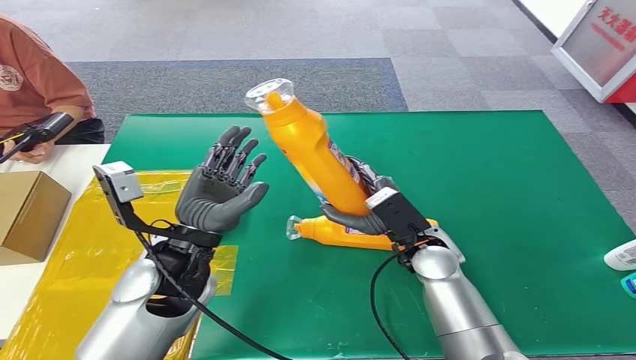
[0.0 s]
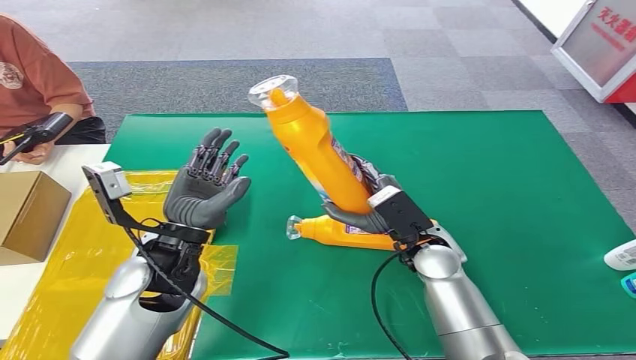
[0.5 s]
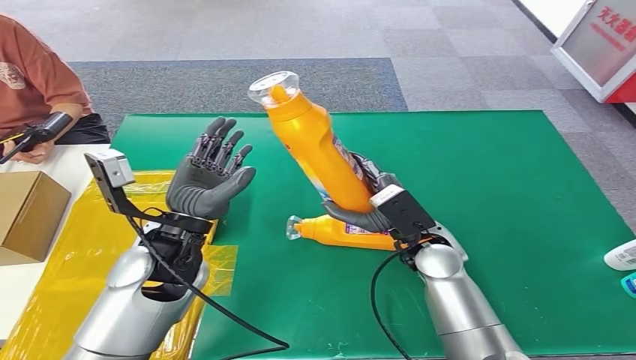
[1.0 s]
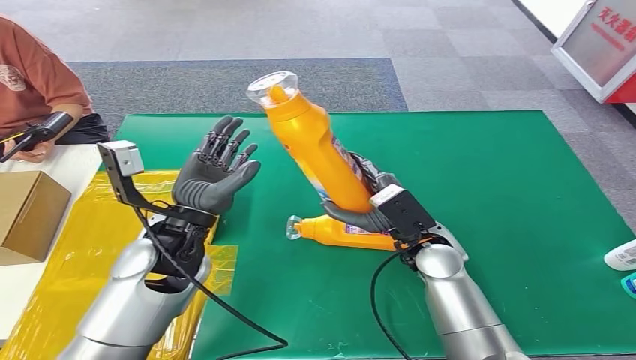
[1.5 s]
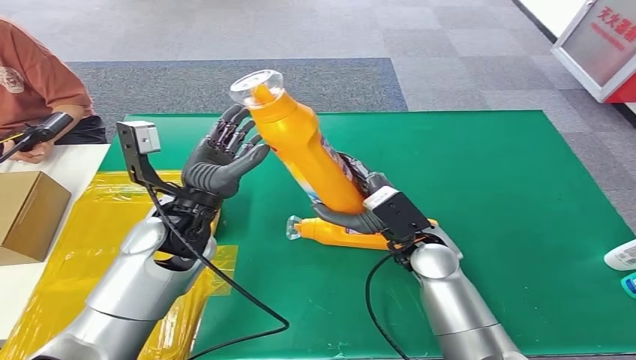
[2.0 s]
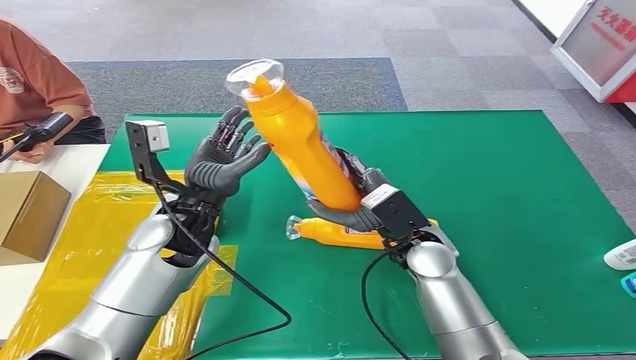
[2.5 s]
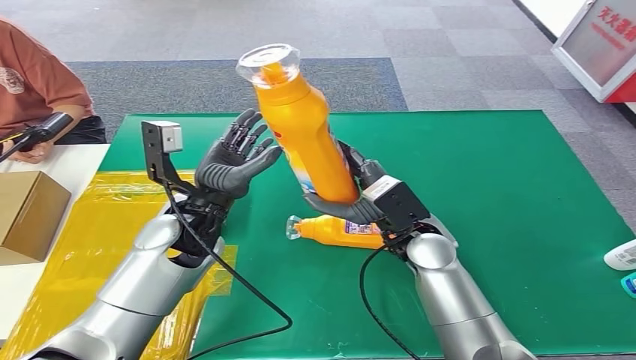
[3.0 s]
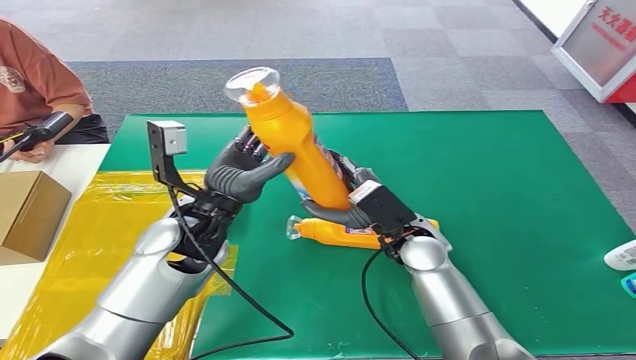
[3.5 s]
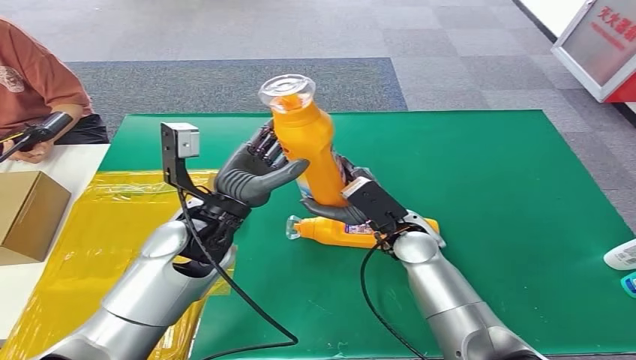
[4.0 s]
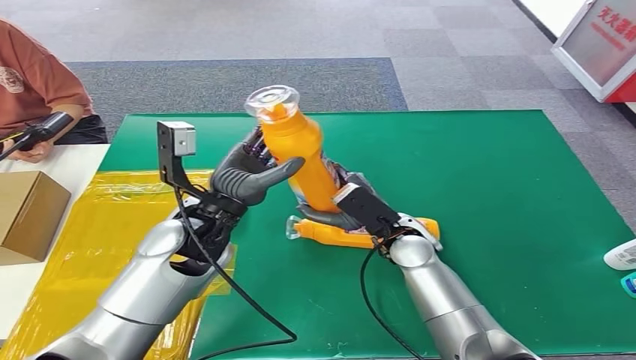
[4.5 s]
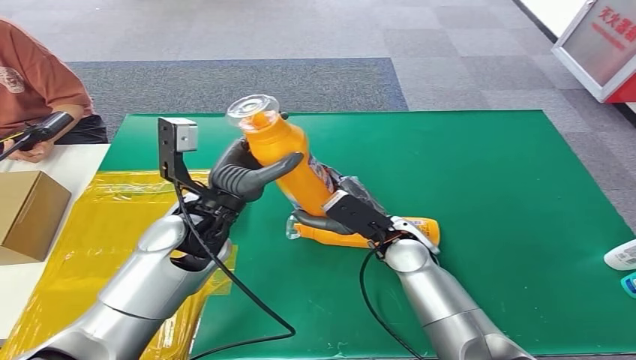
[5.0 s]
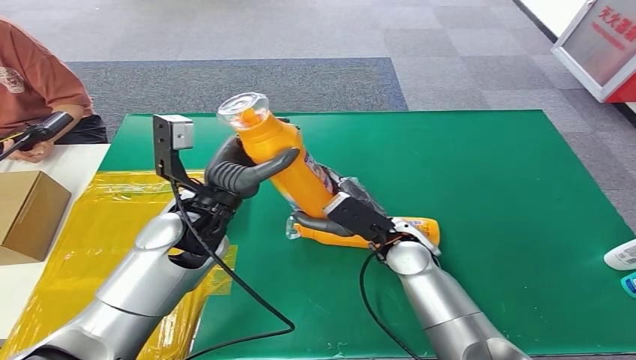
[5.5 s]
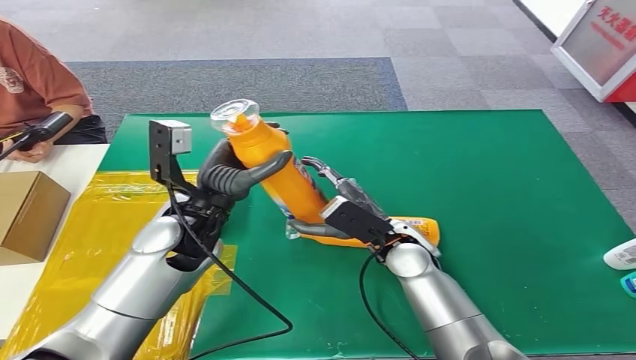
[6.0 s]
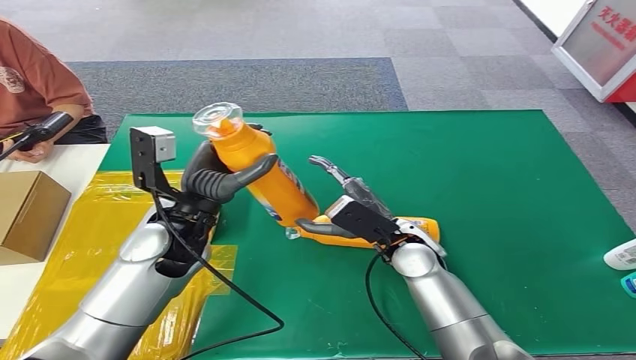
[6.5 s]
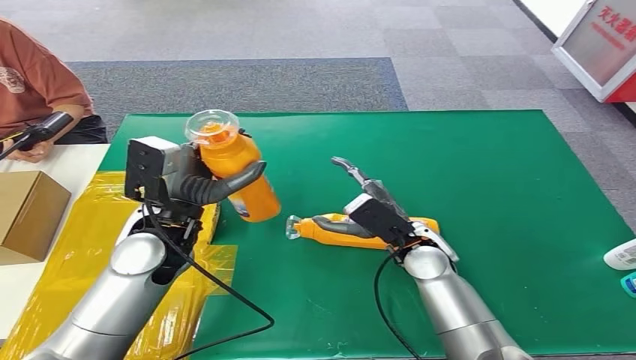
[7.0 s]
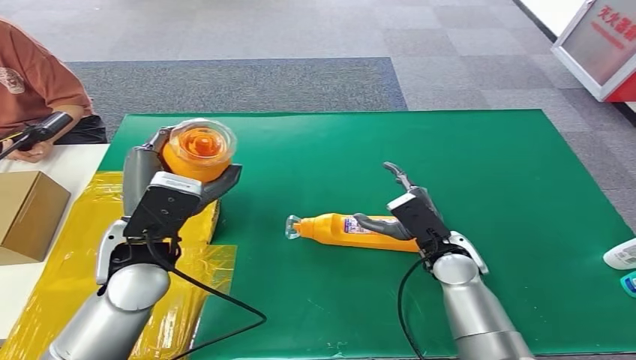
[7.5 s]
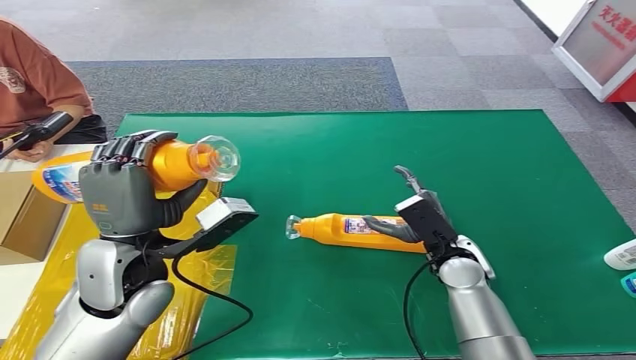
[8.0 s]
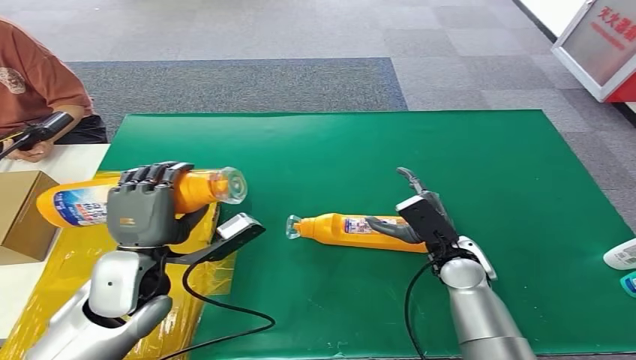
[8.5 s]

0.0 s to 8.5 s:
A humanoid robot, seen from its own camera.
Step, 0.5 to 8.5 s: Turn the bottle to the front side.
0.0 to 2.0 s: The left hand heads forward, covering approximately 5 cm.
2.0 to 6.5 s: The hands stay close to where they were, moving slightly.
